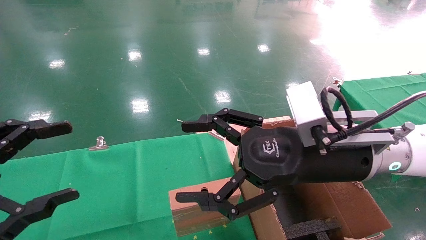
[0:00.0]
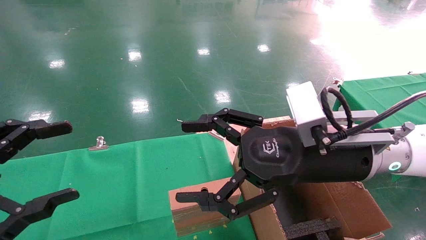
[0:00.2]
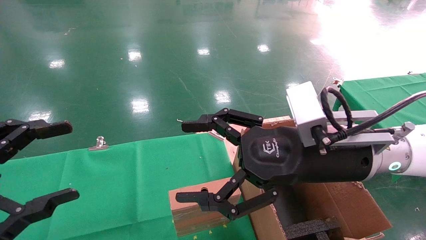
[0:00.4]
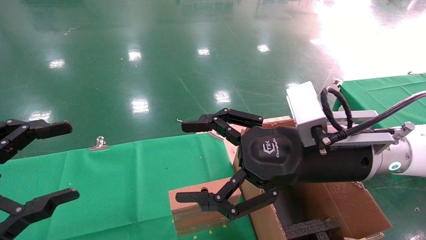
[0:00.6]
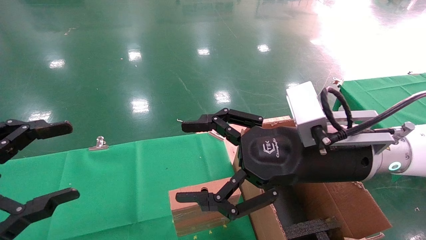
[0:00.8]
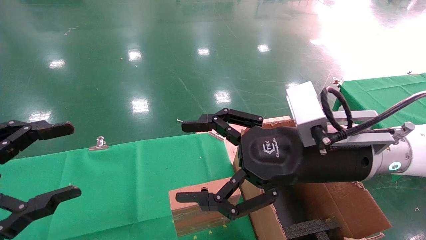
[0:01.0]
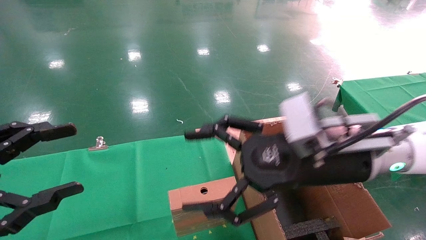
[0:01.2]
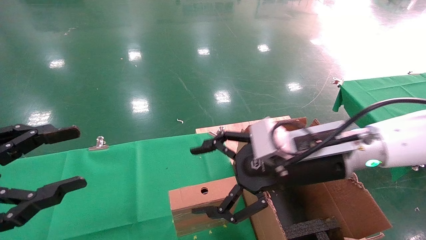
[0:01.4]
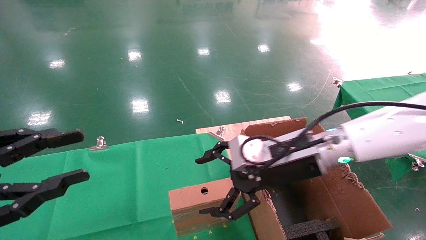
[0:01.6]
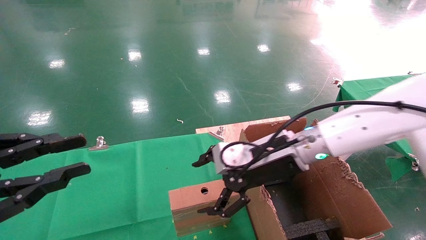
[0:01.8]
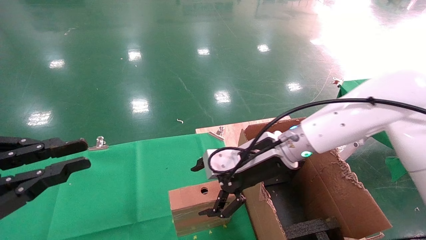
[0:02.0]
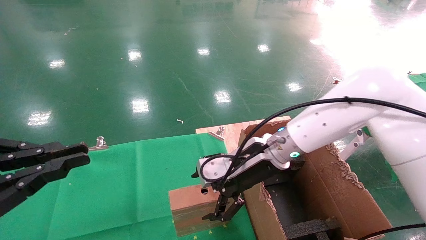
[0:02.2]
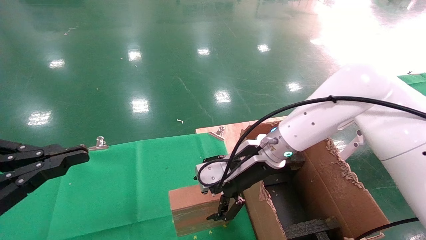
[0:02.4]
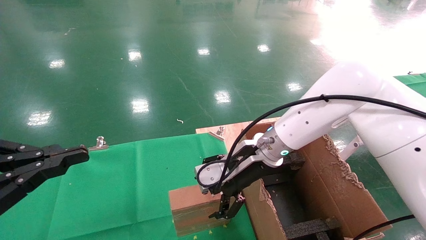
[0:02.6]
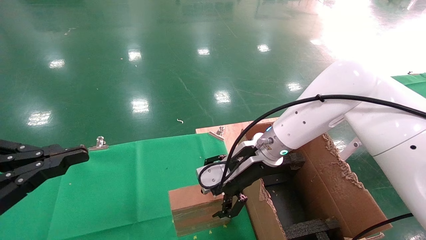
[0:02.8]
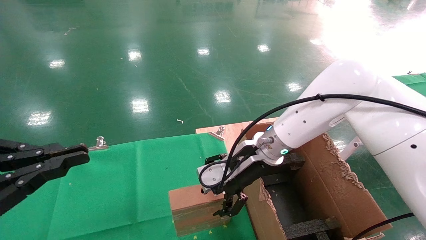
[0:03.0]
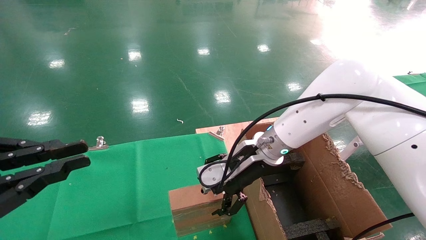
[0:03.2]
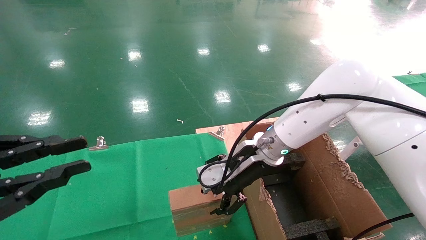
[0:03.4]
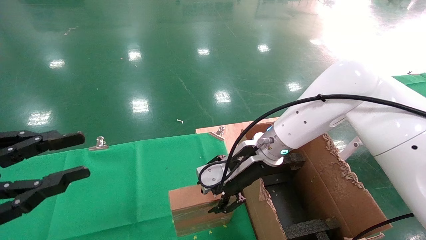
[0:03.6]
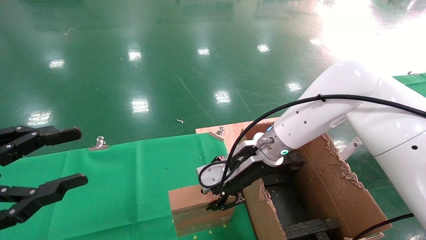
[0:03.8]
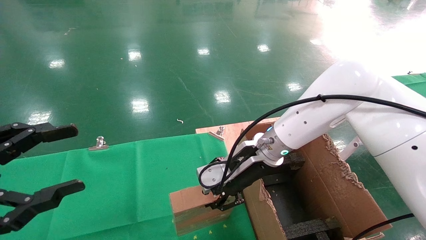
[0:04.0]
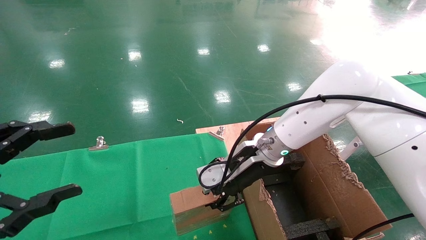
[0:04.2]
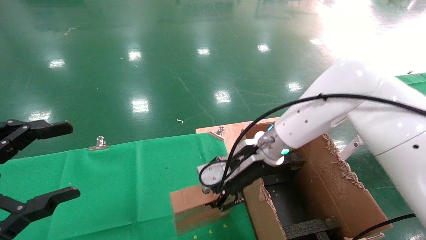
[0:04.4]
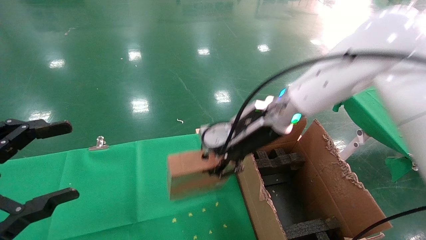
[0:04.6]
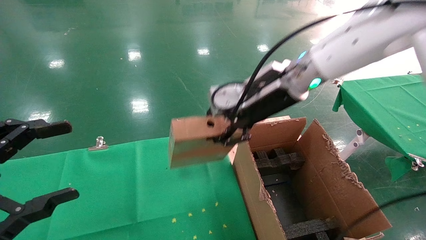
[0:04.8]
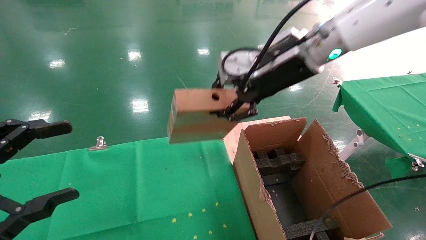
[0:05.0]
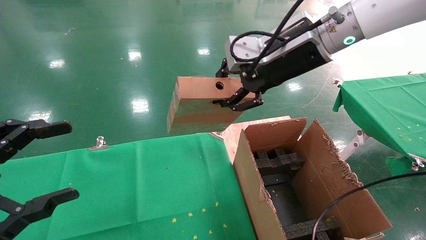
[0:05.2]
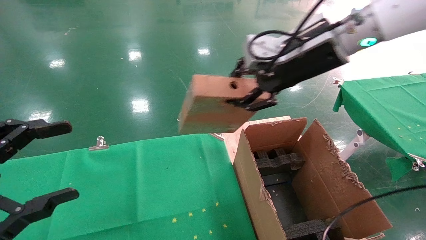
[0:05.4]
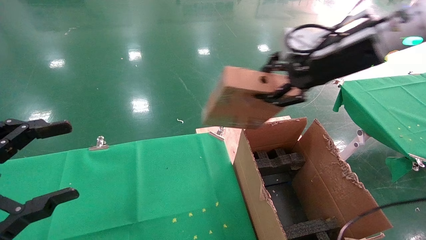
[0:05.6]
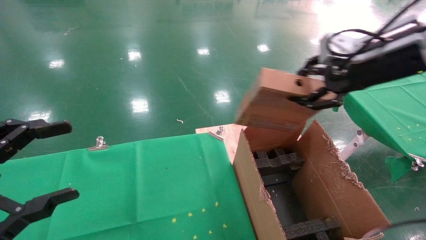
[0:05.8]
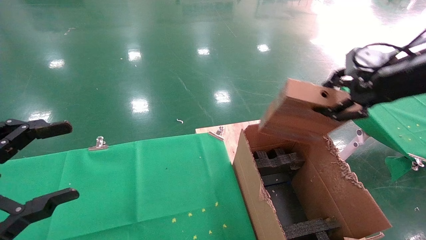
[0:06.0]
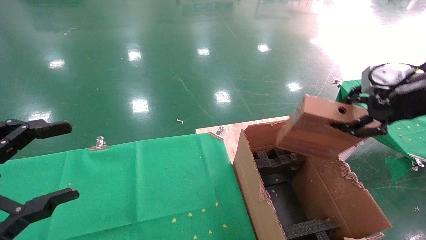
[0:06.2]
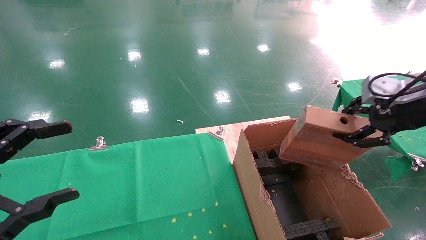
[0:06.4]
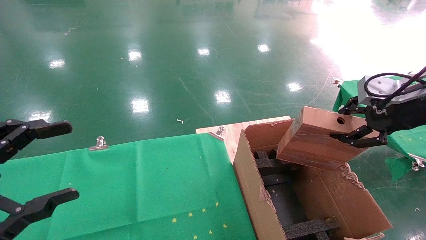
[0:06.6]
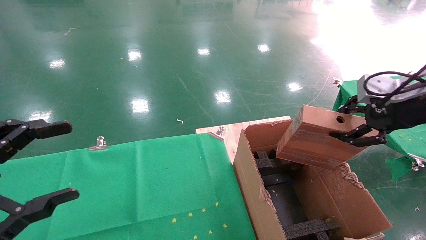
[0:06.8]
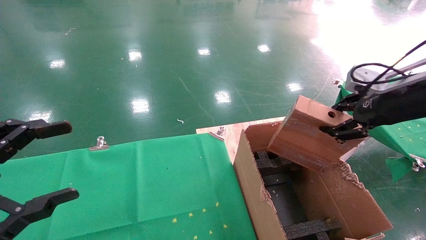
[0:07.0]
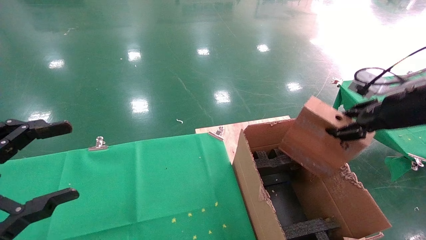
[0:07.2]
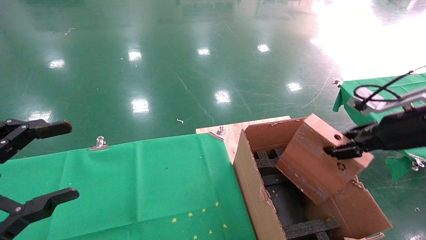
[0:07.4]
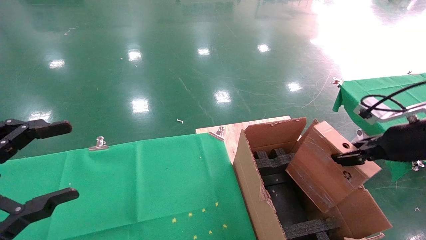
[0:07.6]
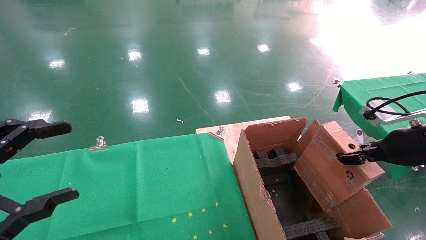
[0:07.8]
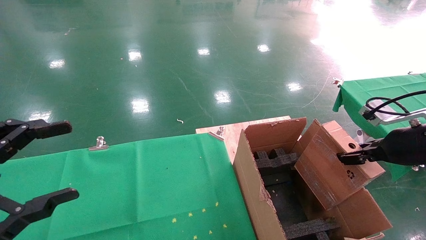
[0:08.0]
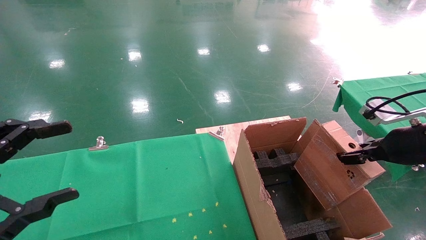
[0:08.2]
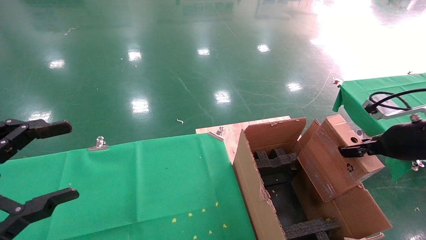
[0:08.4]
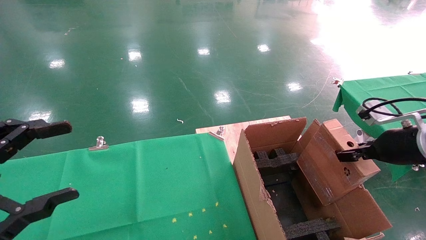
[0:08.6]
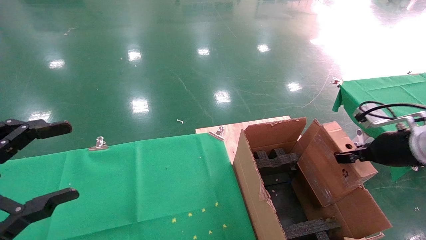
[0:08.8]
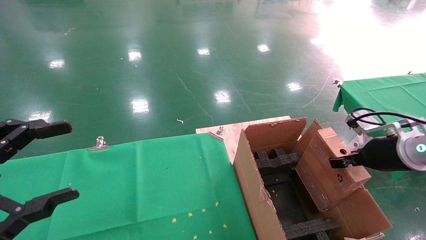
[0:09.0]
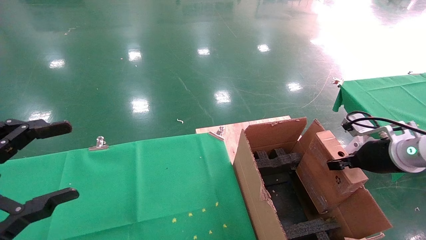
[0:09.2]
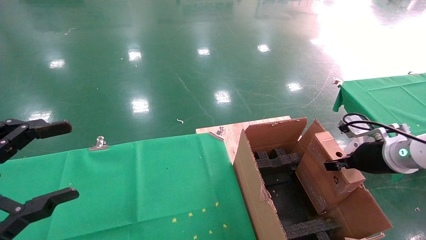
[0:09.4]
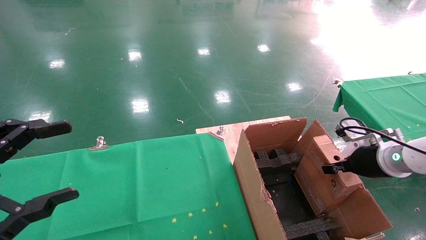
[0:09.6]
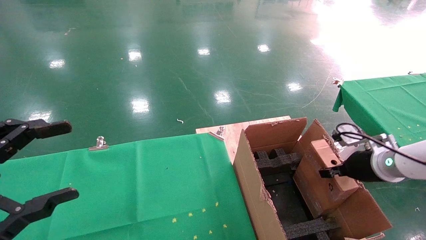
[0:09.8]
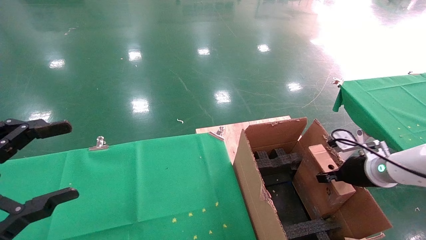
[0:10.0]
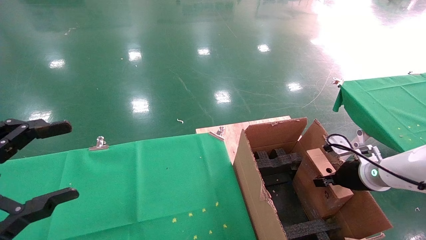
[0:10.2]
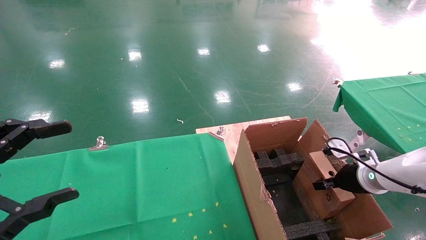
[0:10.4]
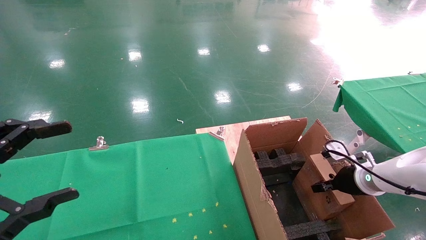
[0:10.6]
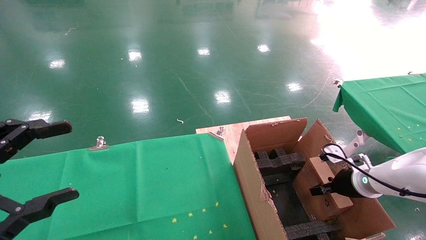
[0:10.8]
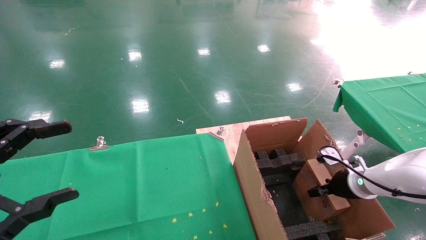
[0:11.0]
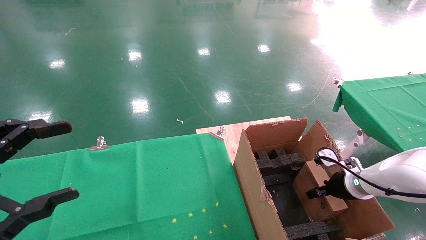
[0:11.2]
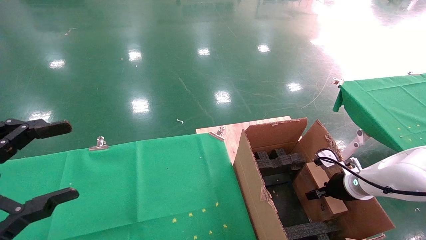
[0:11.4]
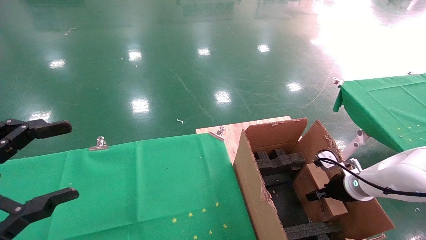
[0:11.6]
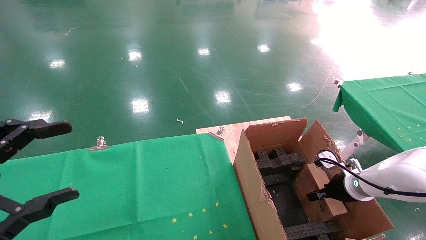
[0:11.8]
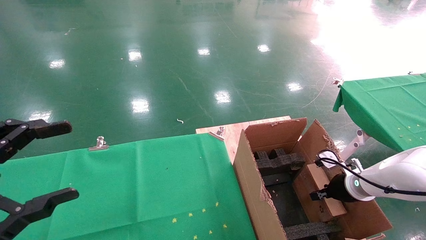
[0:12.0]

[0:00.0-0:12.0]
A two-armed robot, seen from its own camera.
Task of the whole recording: using a robotic arm to pick up a cardboard box and palace it the carton.
Step, 0:01.2 to 0:04.0: Pick up the mouse and the power cord paper box.
0:00.0 to 0:01.6: The left gripper closes. Meanwhile the right gripper travels forward by about 5 cm.
0:01.6 to 0:03.0: The left gripper closes its fingers; the right gripper is displaced forward by some 5 cm.
0:03.0 to 0:04.4: The right gripper closes up. The left gripper opens its fingers.
0:04.4 to 0:06.0: The right gripper goes some 30 cm to the right and upward.
0:06.0 to 0:07.6: The right gripper goes roughly 10 cm downward.
0:07.6 to 0:09.0: The right gripper is displaced downward by approximately 5 cm.
0:09.0 to 0:10.4: The right gripper goes approximately 10 cm downward.
0:10.4 to 0:12.0: The grippers move only a little.

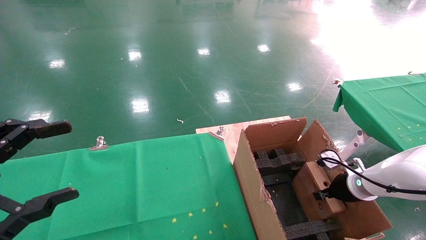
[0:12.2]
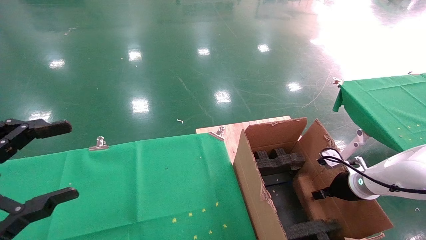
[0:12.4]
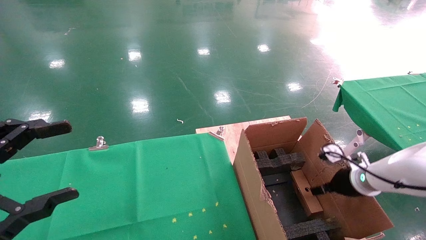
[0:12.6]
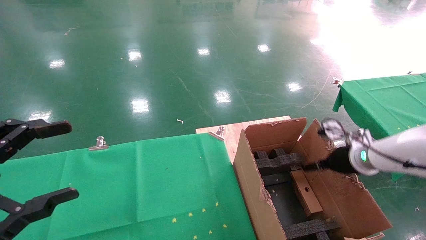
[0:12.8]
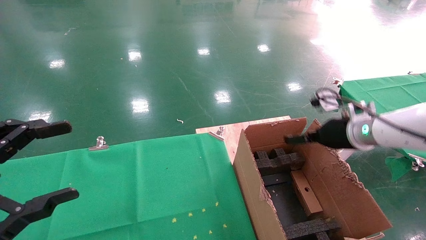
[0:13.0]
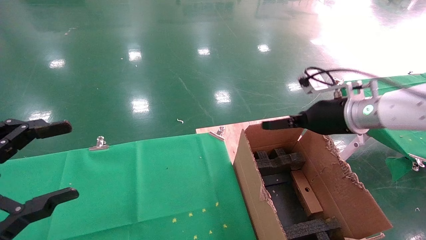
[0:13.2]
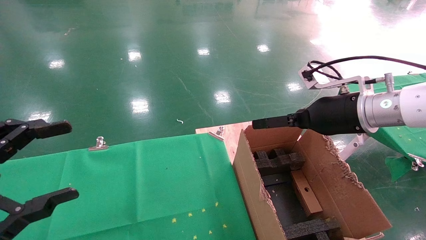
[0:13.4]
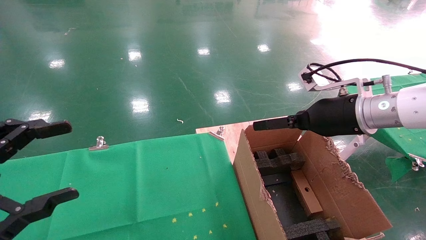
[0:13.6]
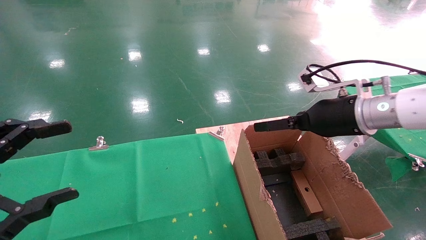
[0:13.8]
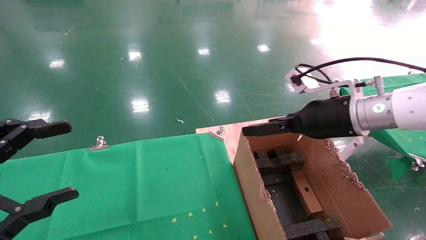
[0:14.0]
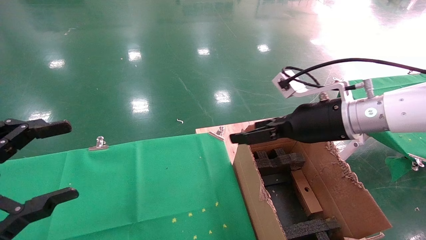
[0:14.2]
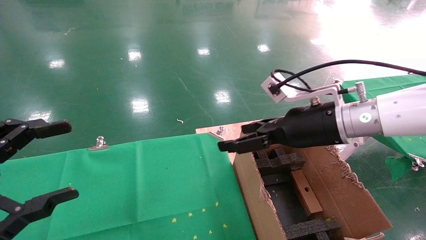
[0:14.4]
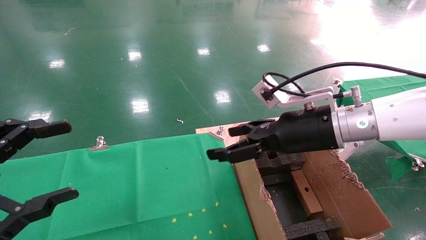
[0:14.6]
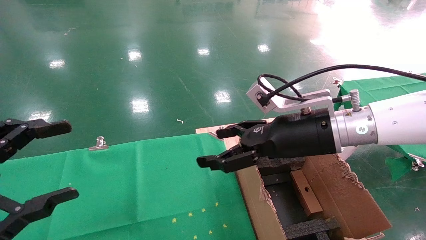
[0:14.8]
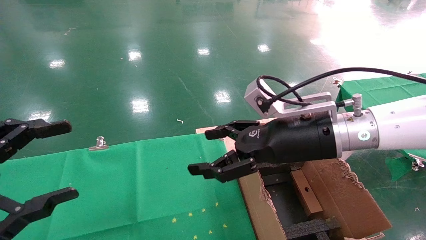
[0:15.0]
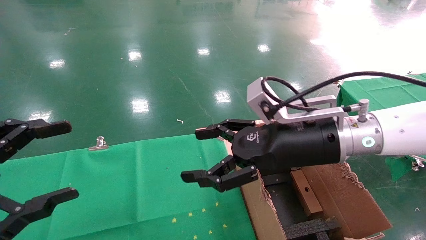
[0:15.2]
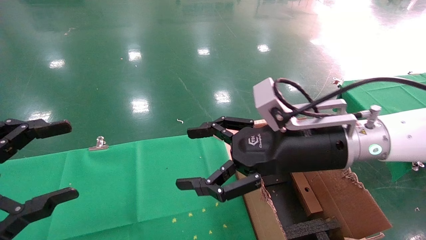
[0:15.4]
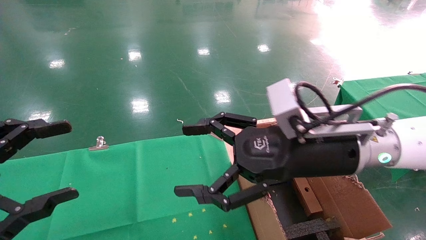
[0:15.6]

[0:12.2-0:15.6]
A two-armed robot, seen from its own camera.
Task of the whole recording: using a robotic arm to pick up a cardboard box and palace it the carton.
0:12.2 to 0:13.8: The right gripper goes approximately 25 cm upward and to the left, and opens its fingers.
0:13.8 to 0:15.6: The right gripper moves to the left and backward, roughly 10 cm.

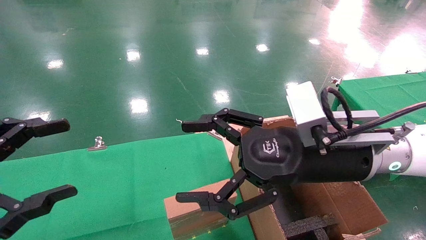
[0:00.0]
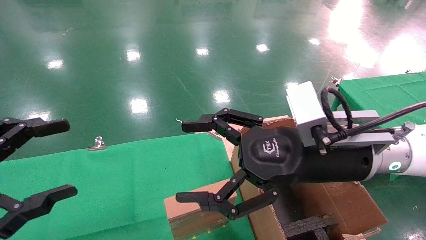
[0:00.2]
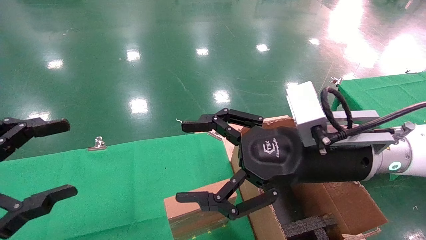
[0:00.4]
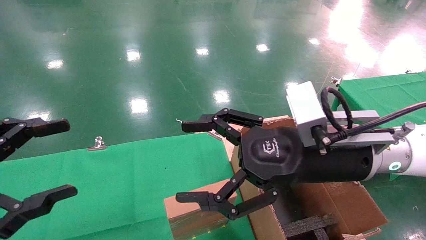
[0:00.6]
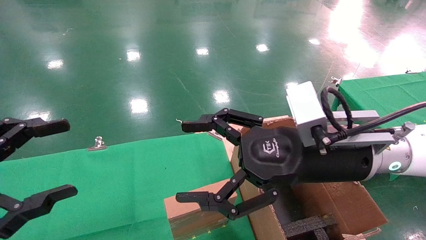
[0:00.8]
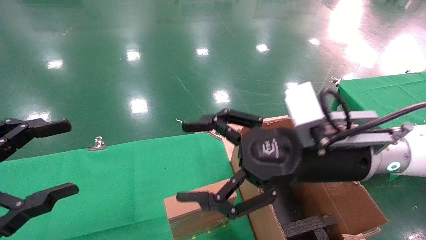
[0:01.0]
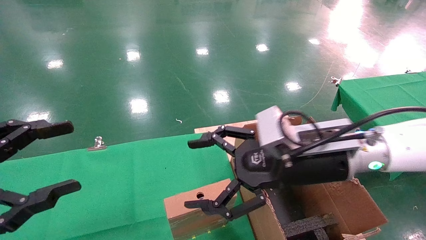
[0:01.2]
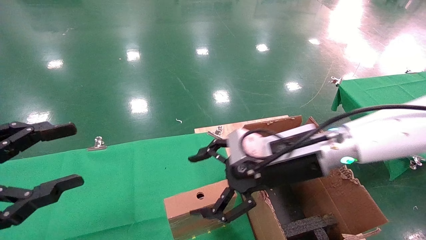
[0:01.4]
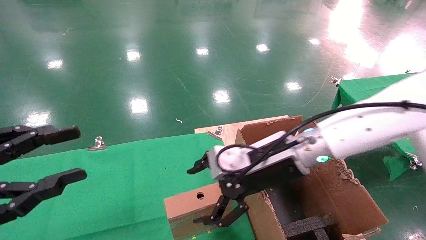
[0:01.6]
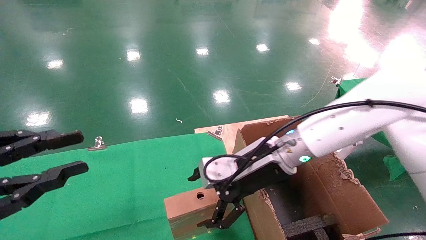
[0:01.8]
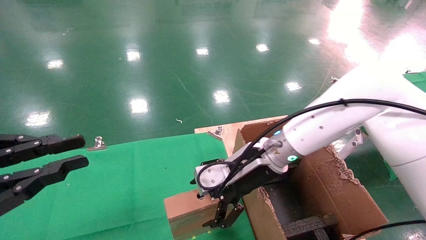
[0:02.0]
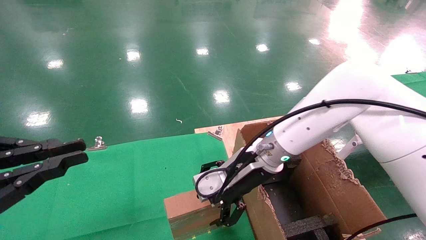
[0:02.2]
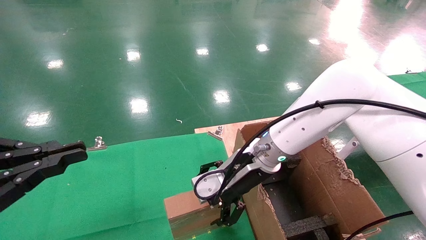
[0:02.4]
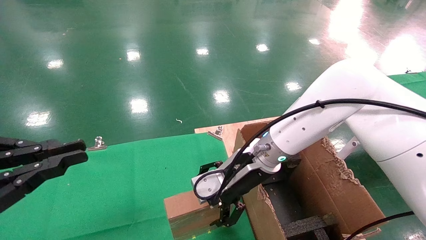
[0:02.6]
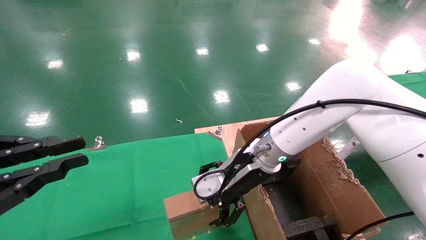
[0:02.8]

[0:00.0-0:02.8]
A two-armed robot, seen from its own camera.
Task of the whole recording: using a robotic arm to pick up a cardboard box and palace it the carton.
0:00.0 to 0:01.4: The right gripper heads forward, covering approximately 5 cm.
0:01.4 to 0:02.8: The right gripper moves forward and to the left, approximately 10 cm; the left gripper closes its fingers.
